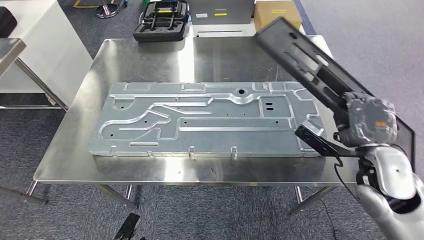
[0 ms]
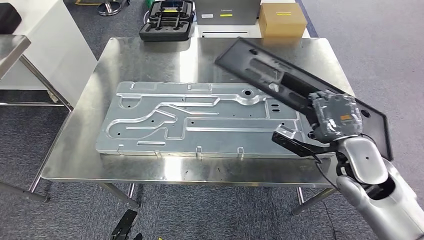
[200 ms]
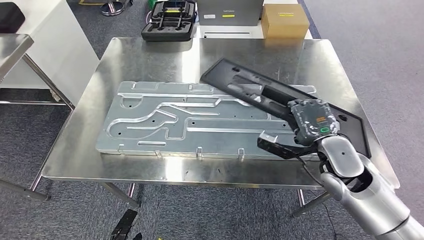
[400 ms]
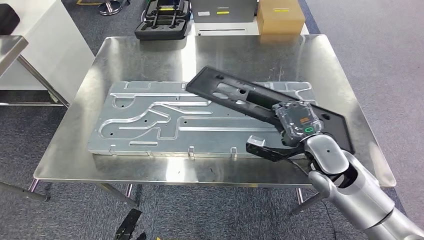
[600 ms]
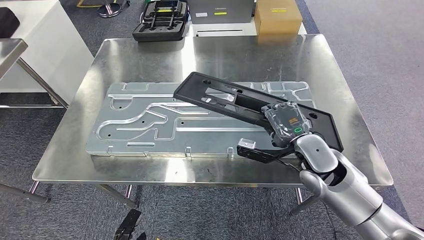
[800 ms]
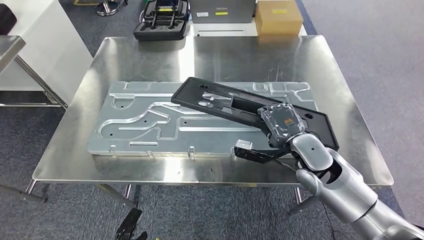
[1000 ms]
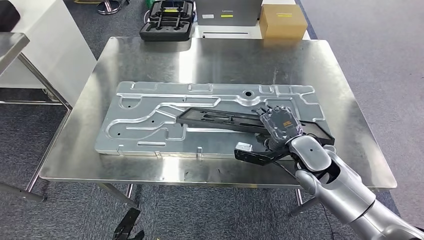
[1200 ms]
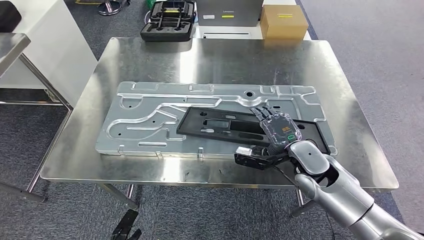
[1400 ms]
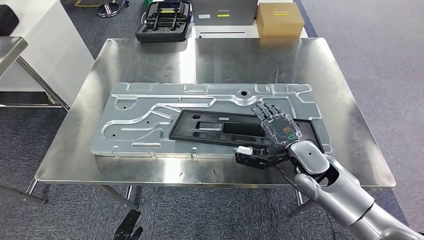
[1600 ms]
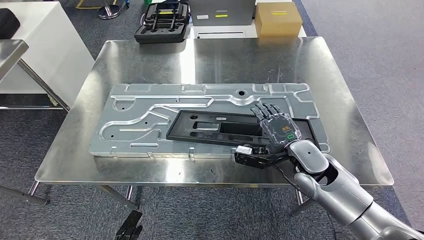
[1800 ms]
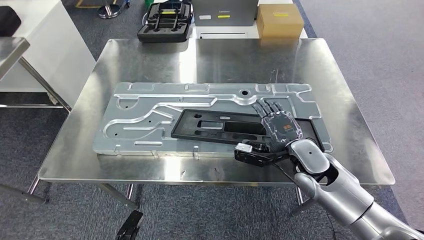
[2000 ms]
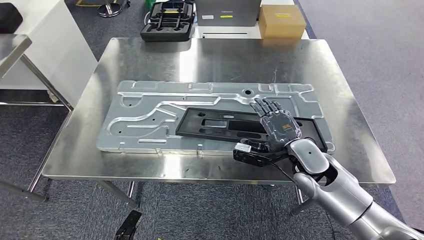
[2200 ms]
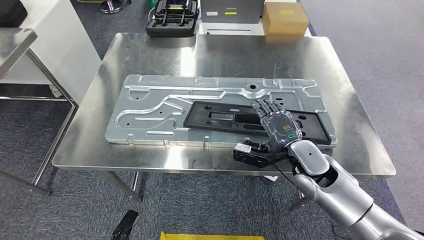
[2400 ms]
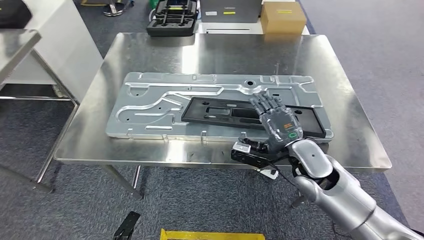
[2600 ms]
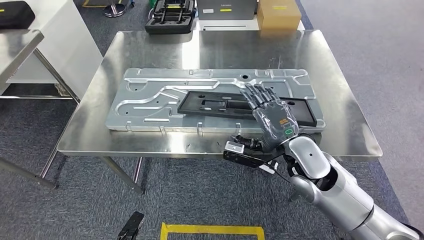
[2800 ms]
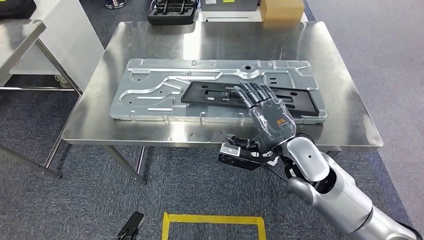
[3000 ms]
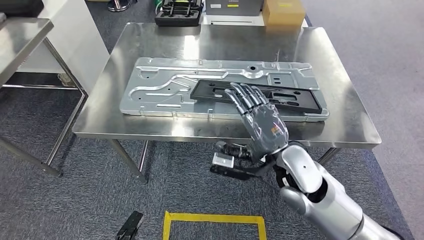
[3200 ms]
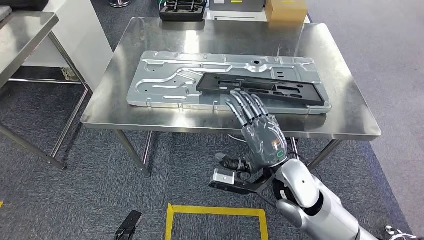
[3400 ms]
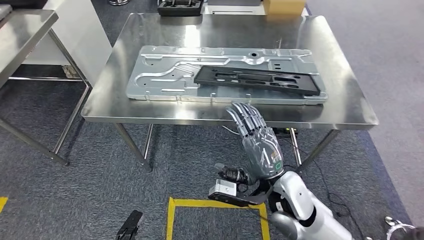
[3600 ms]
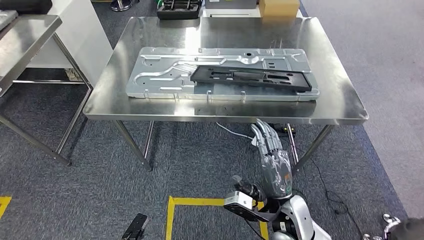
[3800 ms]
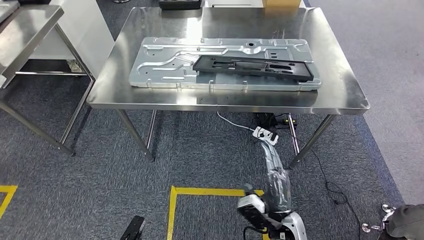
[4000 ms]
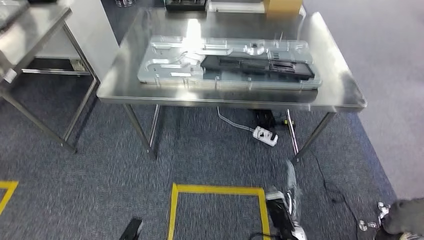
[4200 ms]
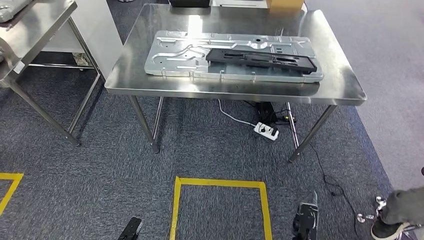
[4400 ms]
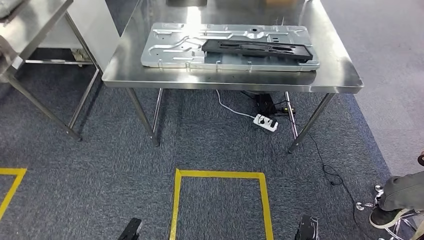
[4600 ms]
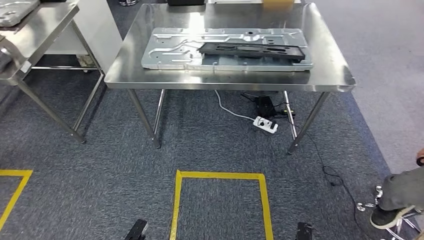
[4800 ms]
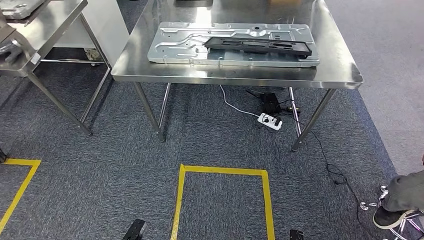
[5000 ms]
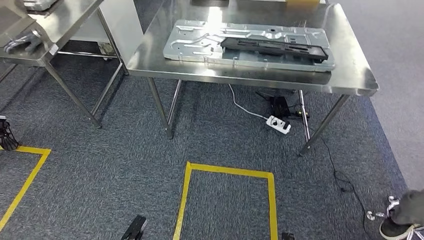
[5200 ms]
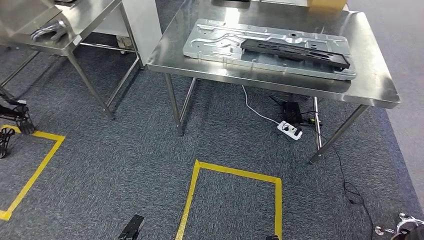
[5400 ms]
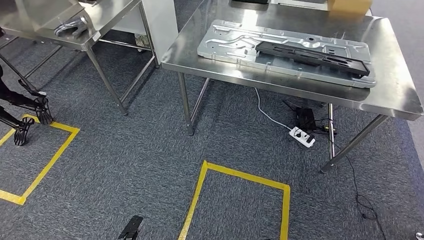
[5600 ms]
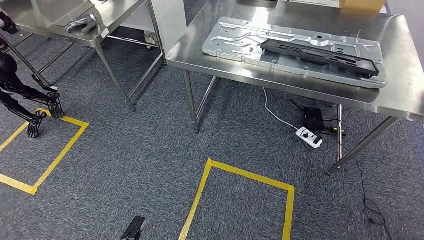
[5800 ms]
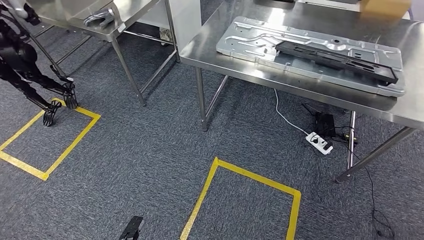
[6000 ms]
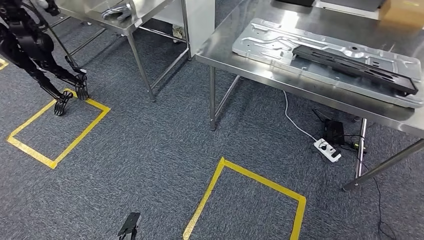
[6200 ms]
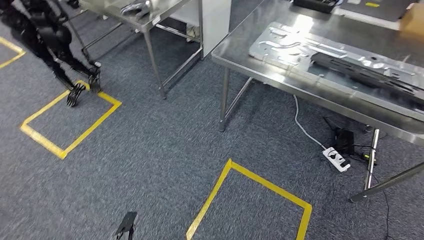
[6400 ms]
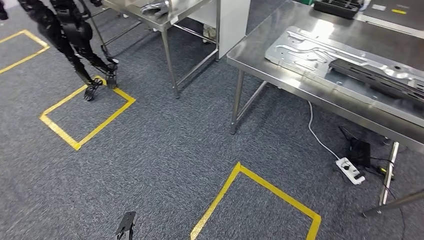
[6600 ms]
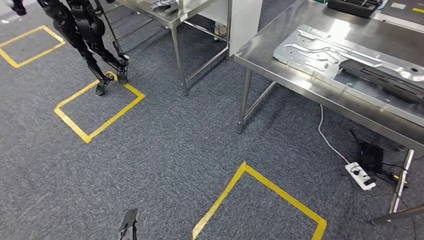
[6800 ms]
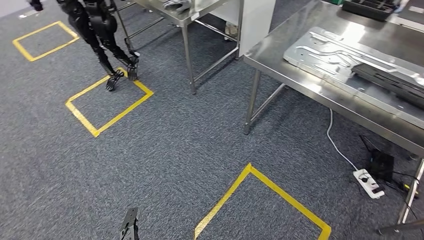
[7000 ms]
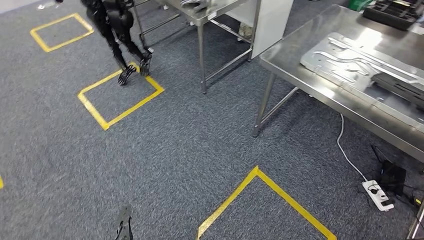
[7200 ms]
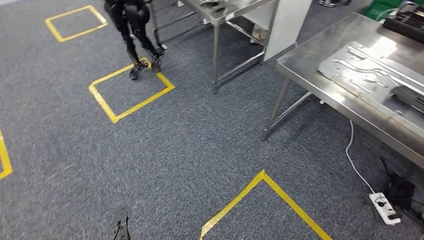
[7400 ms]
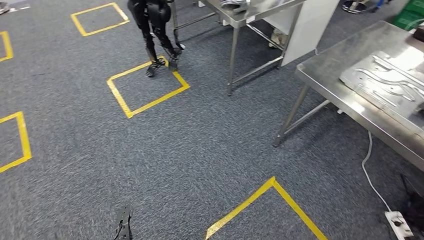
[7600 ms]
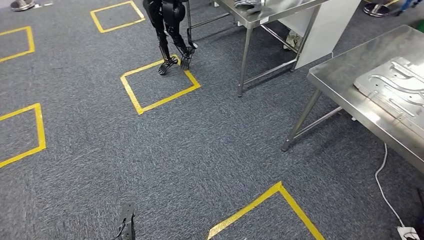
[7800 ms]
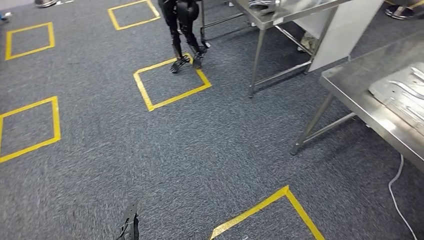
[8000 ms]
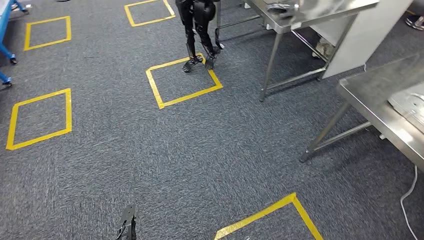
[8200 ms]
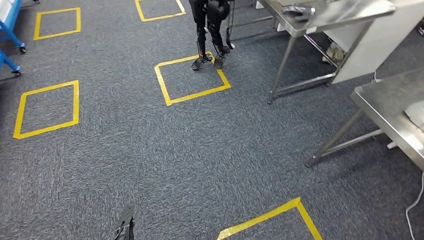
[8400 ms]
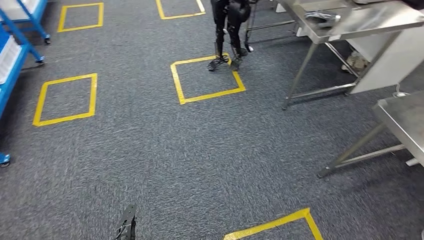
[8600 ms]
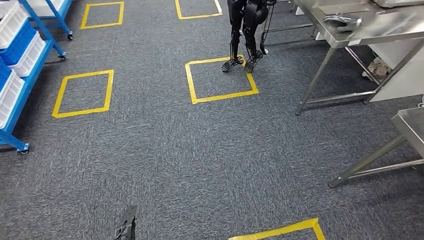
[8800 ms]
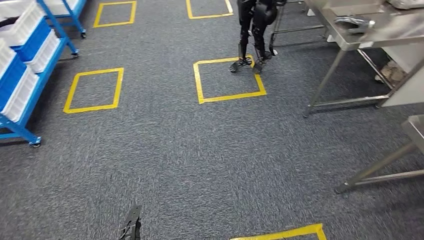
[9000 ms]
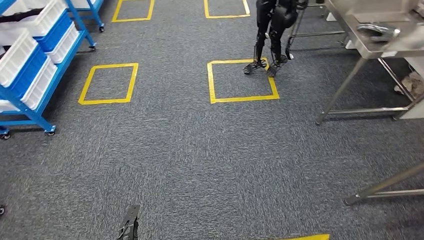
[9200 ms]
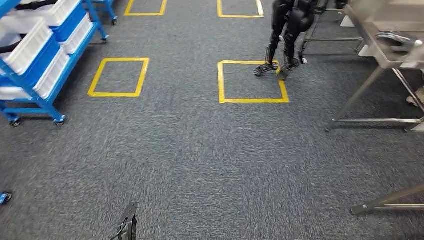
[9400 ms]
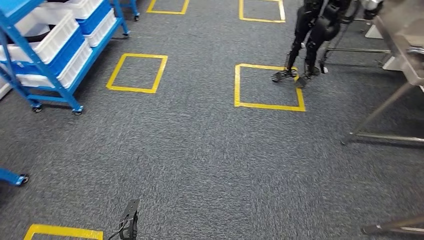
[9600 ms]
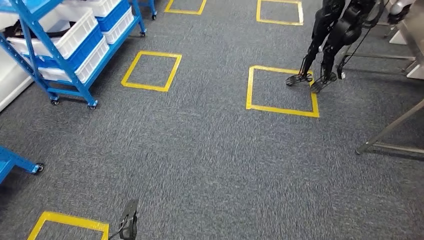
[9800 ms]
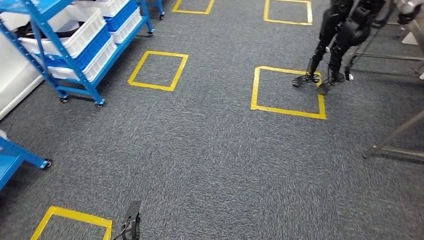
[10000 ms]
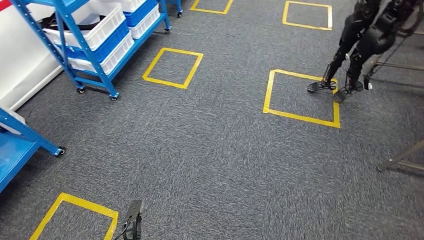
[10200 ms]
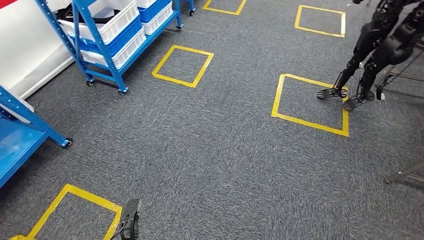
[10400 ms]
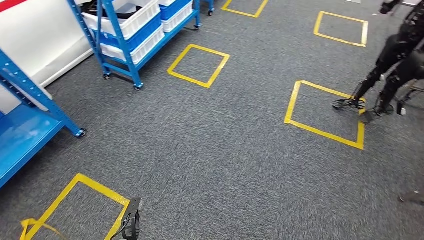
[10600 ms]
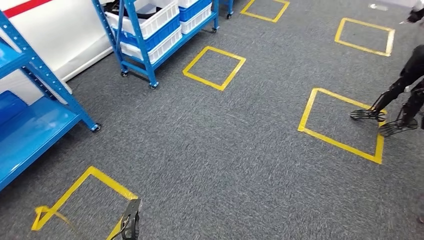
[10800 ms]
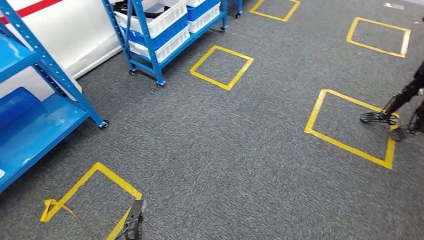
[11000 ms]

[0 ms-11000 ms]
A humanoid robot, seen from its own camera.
Step, 0 ms to 3200 ms: Insert the large material into the corresponding slot on the workbench.

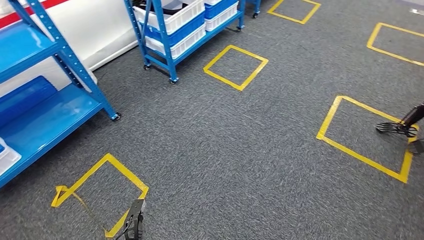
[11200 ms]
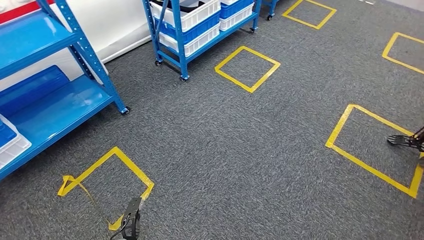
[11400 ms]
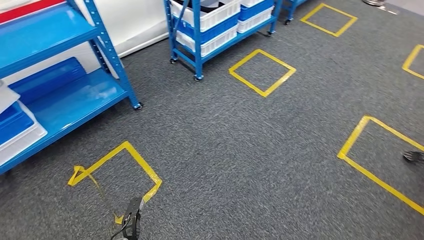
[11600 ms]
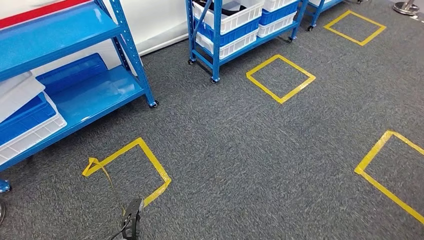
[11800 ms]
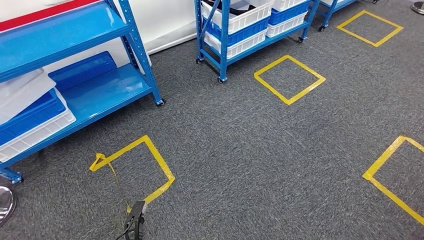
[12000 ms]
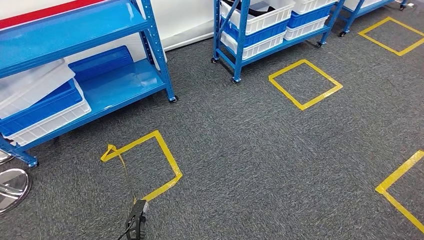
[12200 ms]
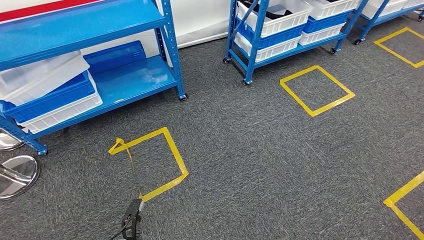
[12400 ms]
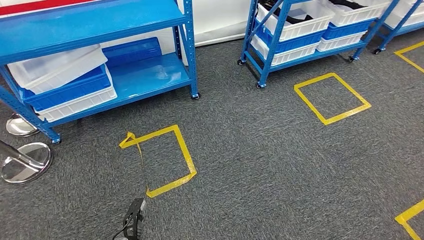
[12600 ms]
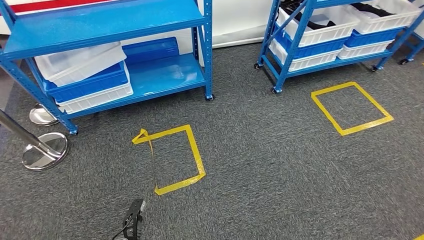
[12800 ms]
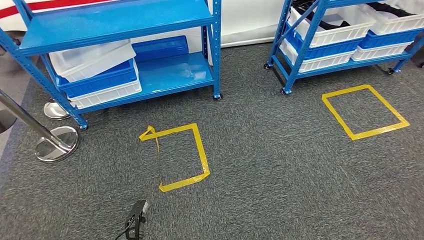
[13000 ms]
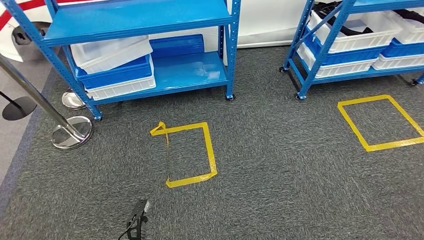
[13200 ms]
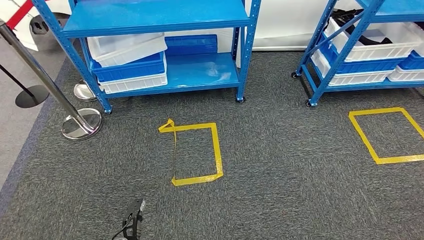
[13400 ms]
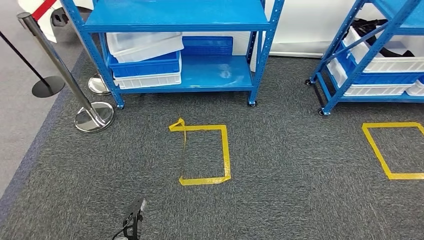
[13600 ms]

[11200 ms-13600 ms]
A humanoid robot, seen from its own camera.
Step, 11200 ms to 13600 ms: Move to the initial position of the shelf.

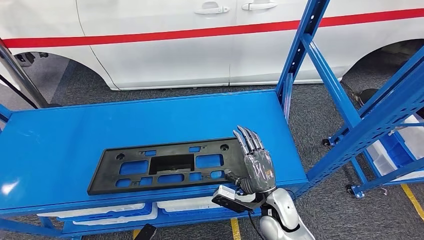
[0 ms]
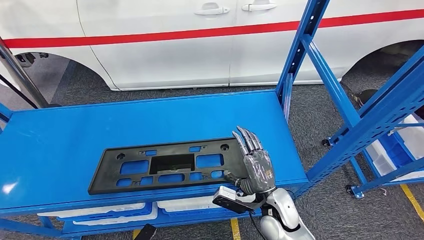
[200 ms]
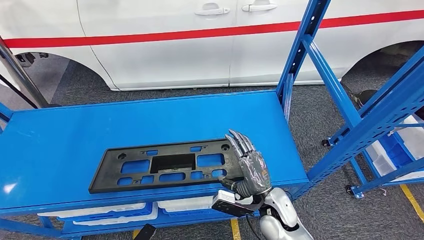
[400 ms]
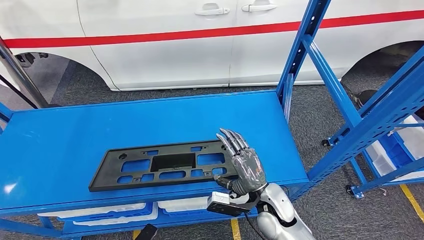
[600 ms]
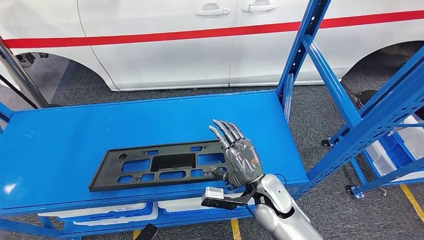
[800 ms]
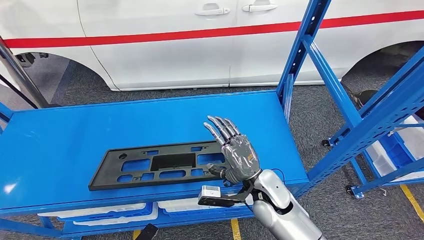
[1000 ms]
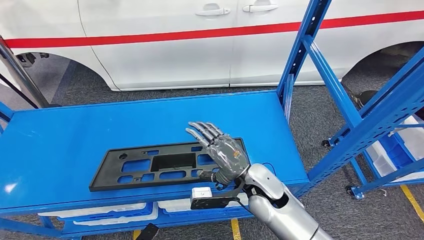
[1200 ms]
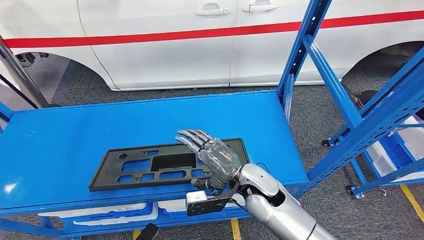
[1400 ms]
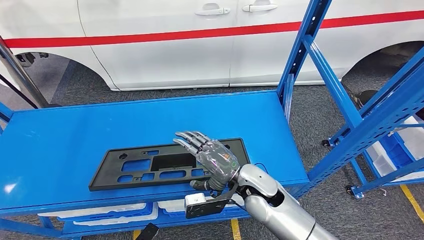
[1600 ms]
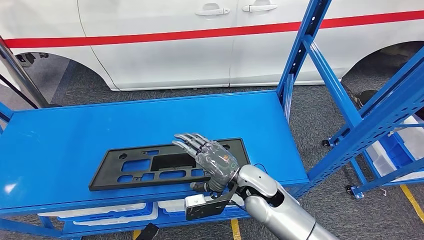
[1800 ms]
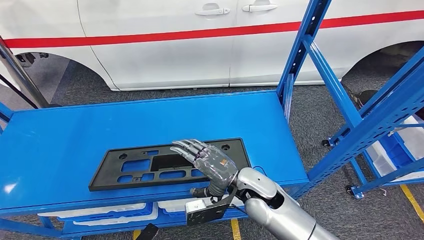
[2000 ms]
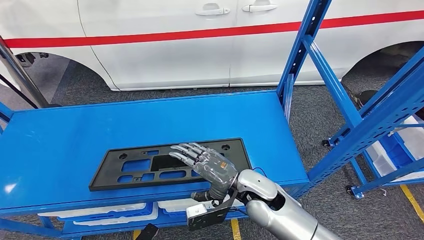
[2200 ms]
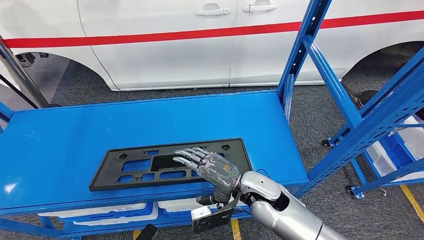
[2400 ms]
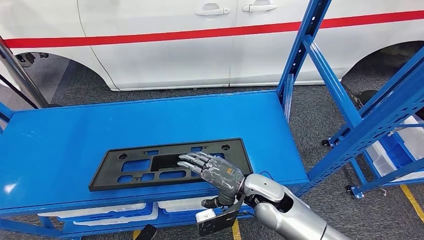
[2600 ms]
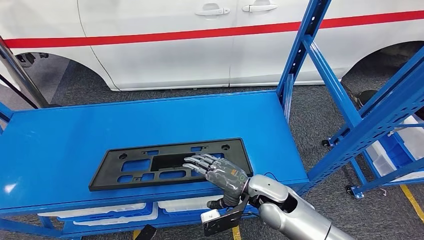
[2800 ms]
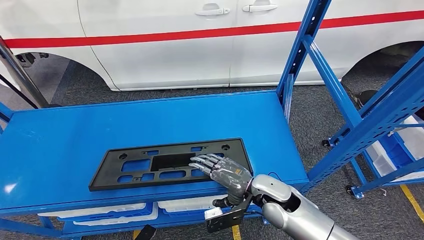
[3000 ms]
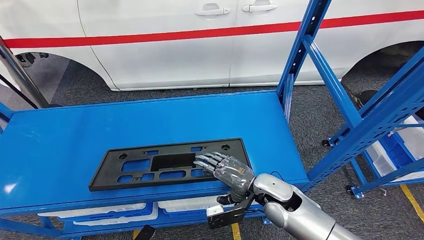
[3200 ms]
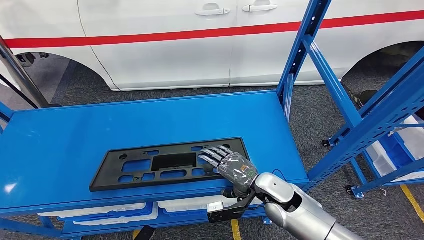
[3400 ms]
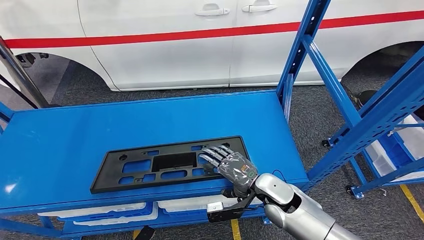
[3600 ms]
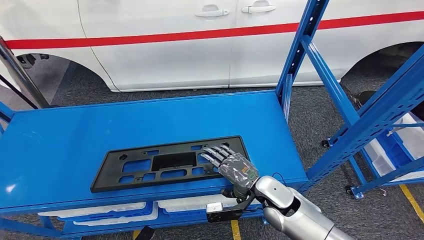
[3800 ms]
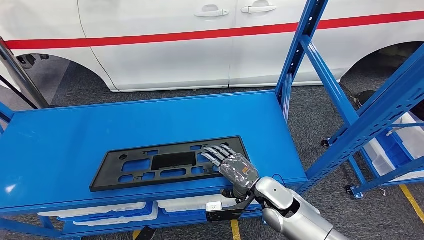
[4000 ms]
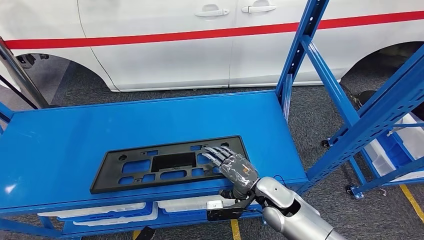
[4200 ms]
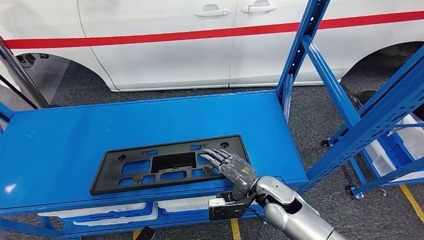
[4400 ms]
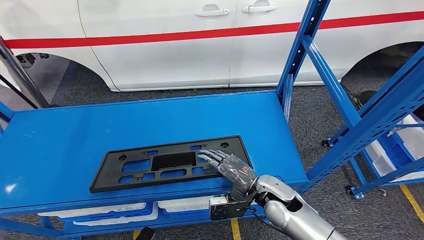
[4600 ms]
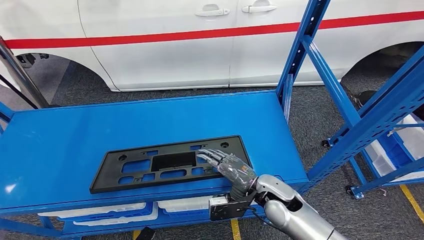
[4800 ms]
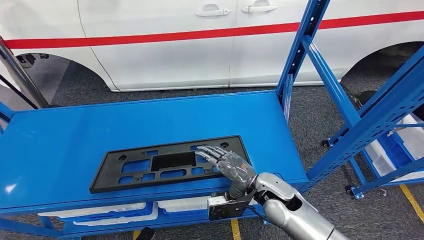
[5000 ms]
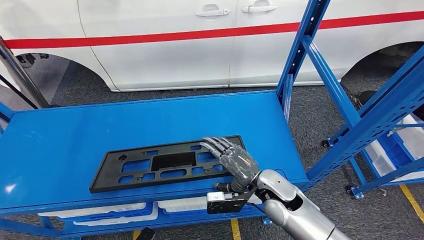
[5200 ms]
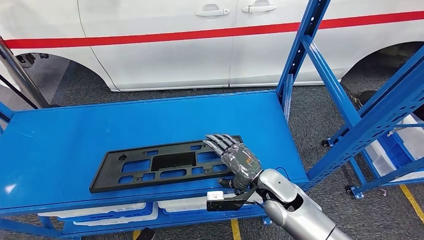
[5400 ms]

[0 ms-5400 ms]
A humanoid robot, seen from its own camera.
0 ms to 1400 ms: The right hand heads upward and to the left, covering roughly 10 cm.
1400 ms to 2800 ms: The hands stay close to where they were, moving slightly.
